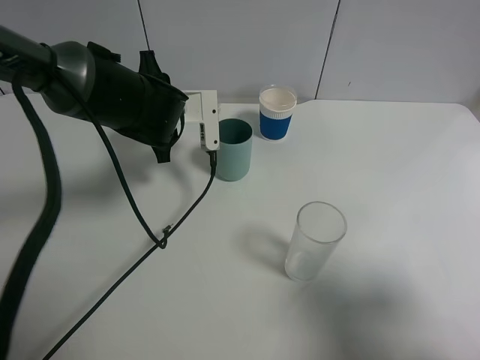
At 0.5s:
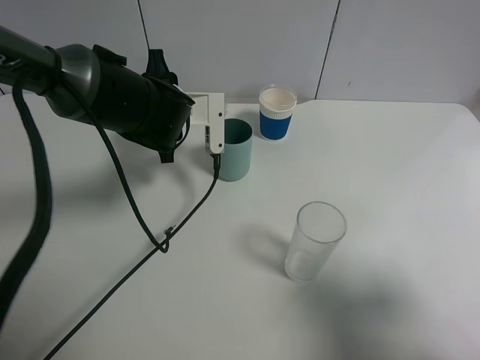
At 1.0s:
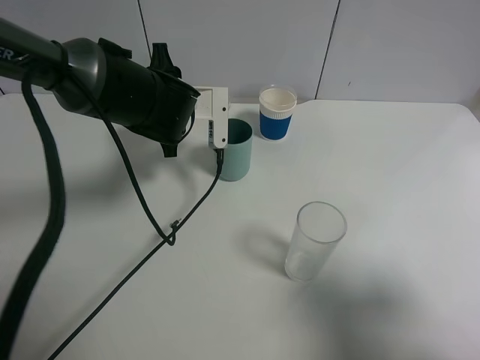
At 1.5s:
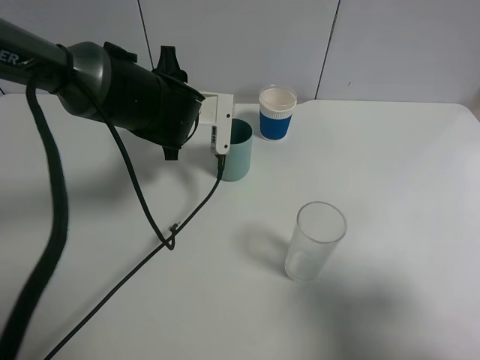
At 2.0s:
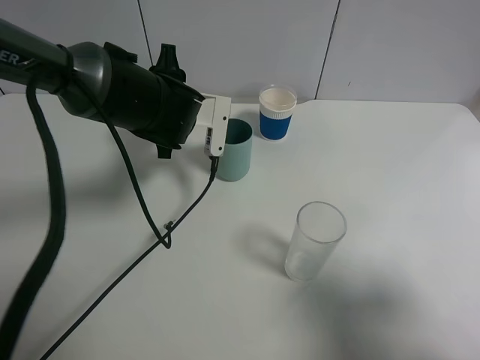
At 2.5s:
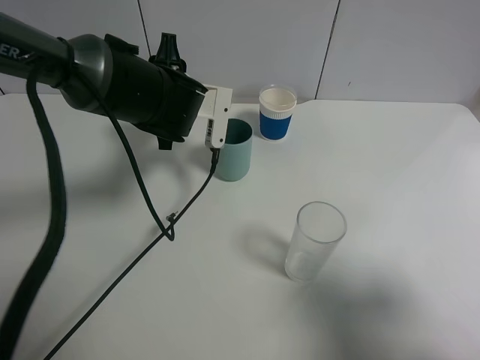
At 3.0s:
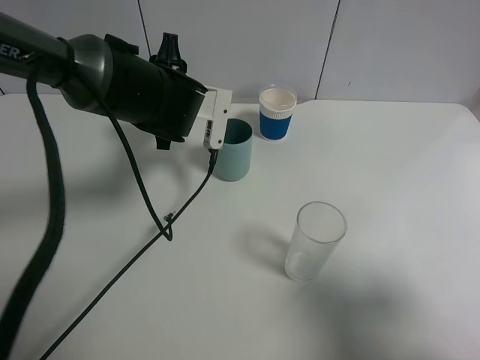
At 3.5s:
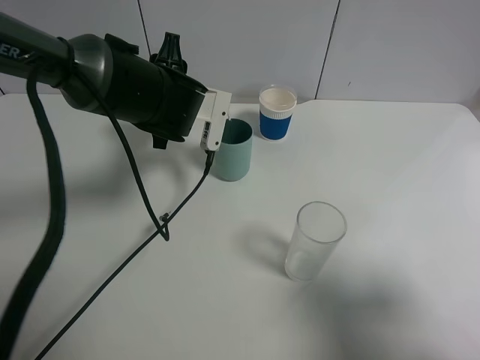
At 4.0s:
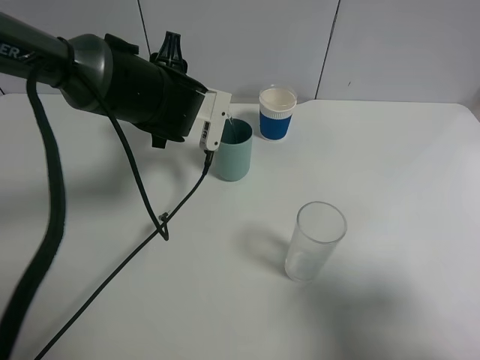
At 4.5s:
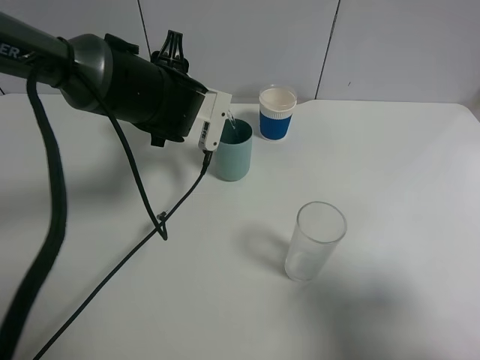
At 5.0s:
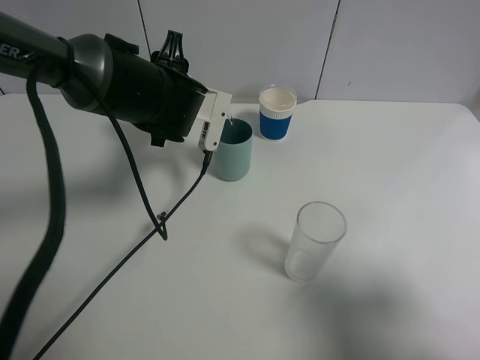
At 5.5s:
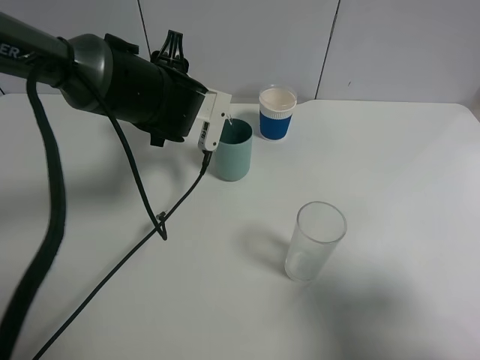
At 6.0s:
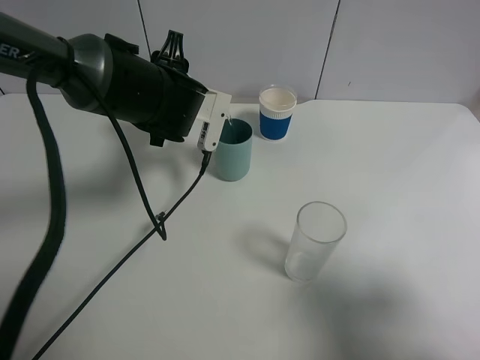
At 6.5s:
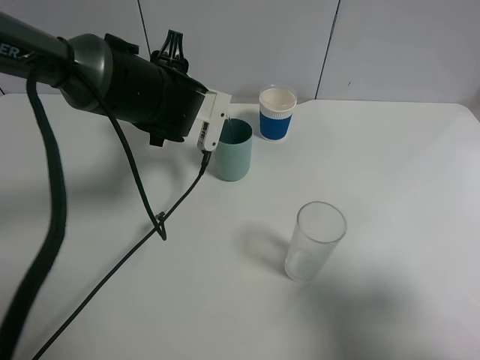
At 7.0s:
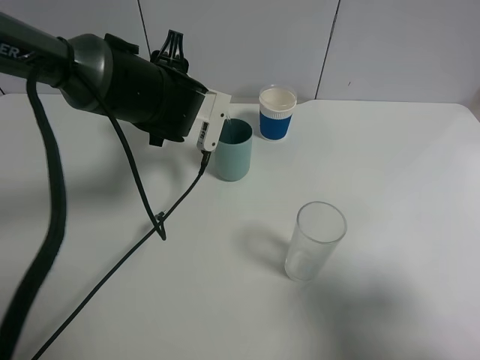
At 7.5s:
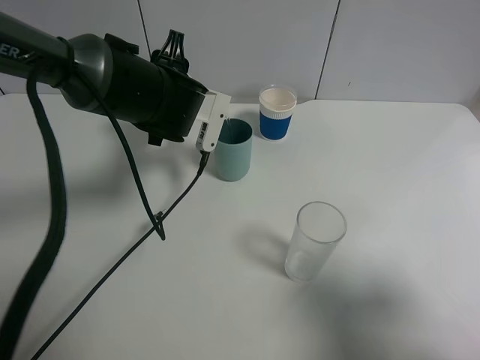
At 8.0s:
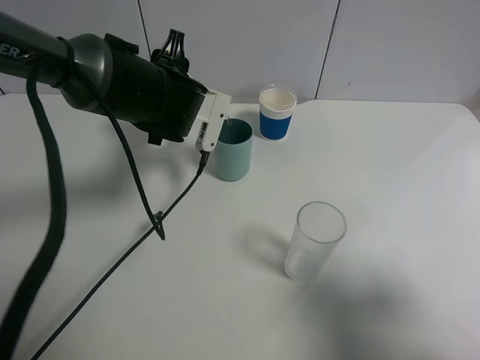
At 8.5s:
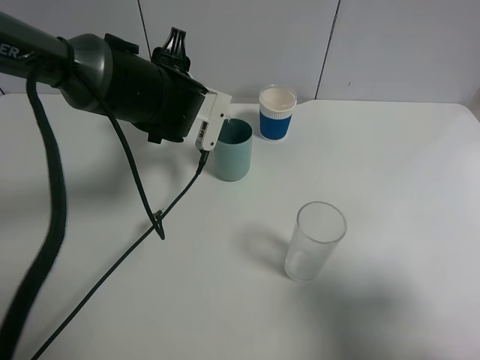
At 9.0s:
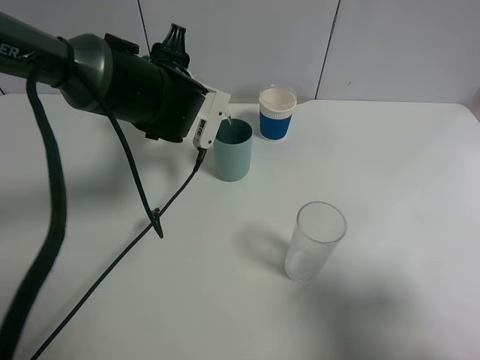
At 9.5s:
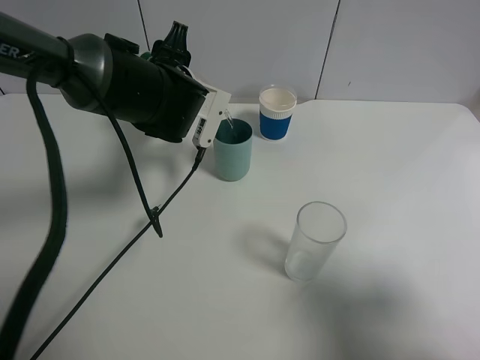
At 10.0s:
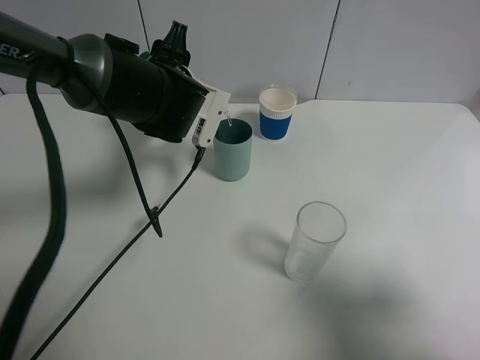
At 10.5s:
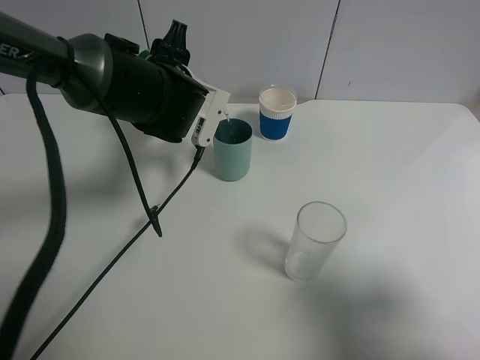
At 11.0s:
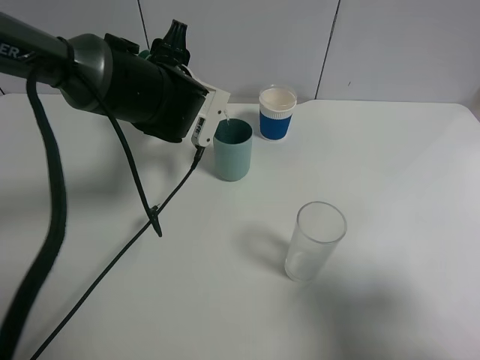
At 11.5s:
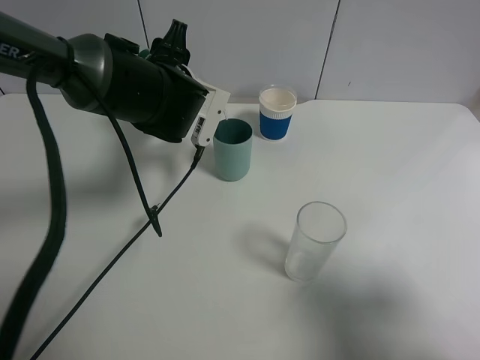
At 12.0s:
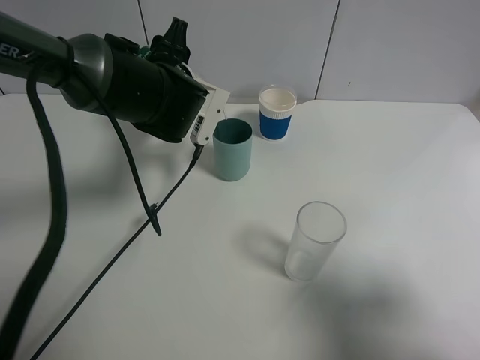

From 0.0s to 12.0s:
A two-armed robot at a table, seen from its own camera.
Task of the whole recording: use a gripper to hold the bottle of the drink and pour it into a random cup.
From 0.0s to 4.0s: The grippers move only a little.
From 4.0s to 8.0s: Both grippers stay about where they are.
From 8.0s to 10.0s: Both grippers stay put.
From 10.0s to 12.0s: The two grippers keep their place.

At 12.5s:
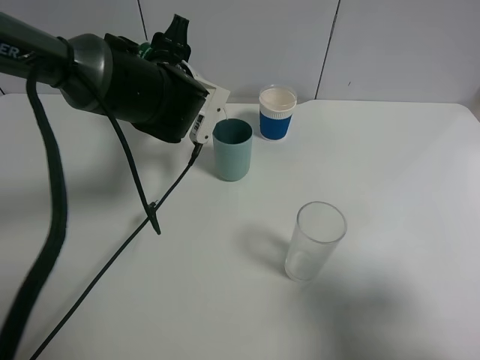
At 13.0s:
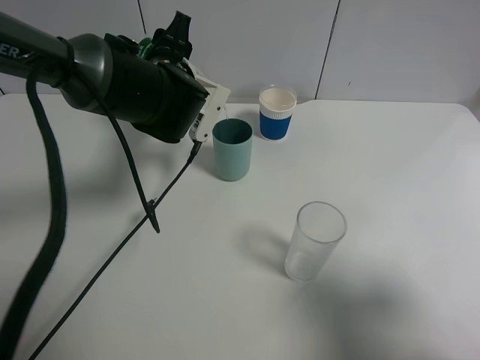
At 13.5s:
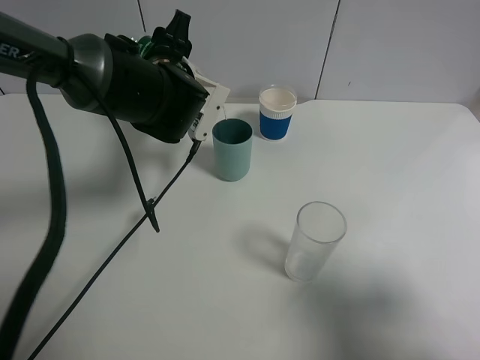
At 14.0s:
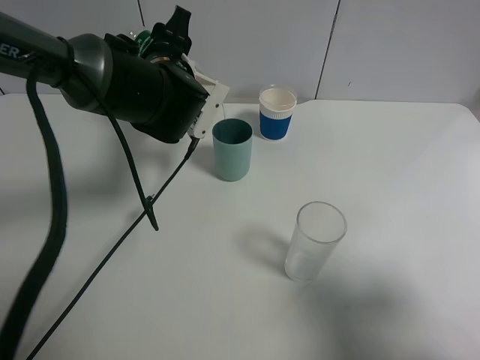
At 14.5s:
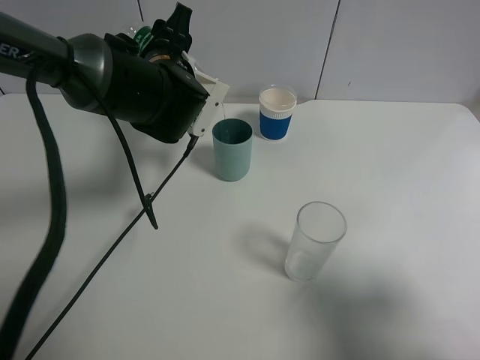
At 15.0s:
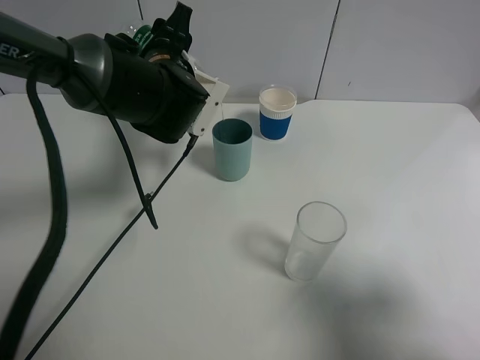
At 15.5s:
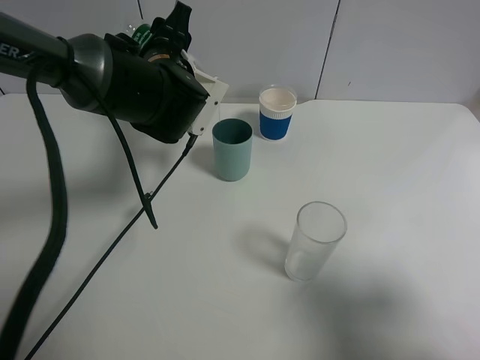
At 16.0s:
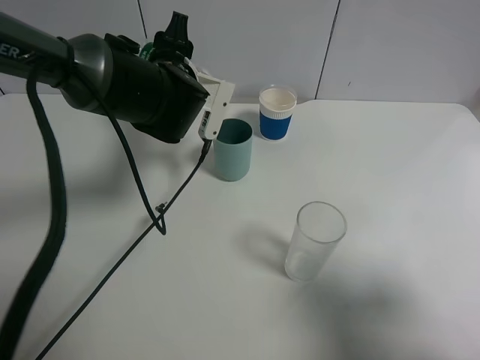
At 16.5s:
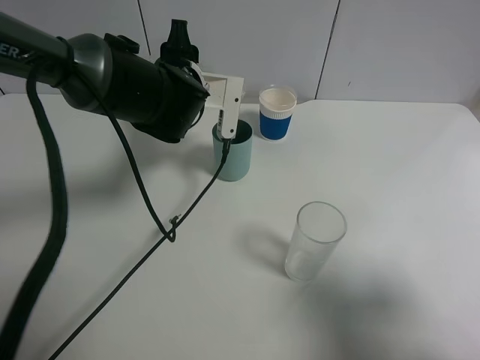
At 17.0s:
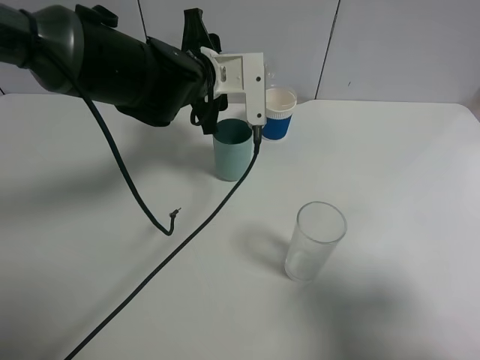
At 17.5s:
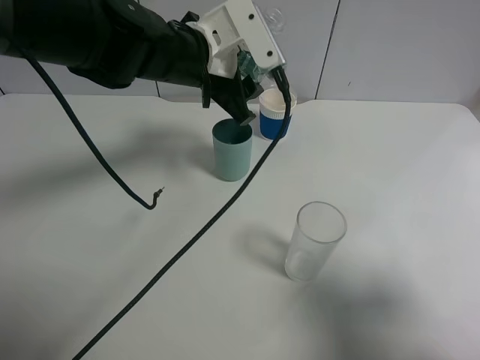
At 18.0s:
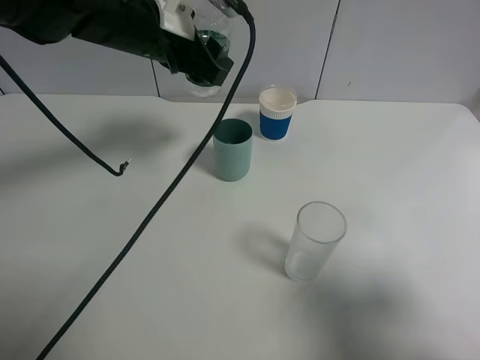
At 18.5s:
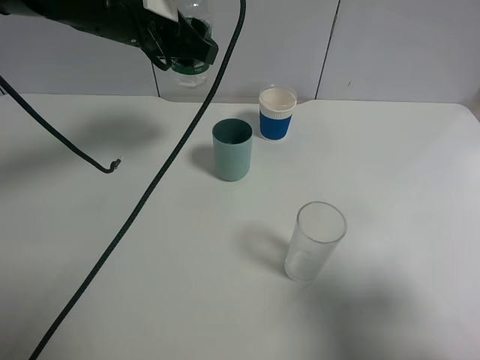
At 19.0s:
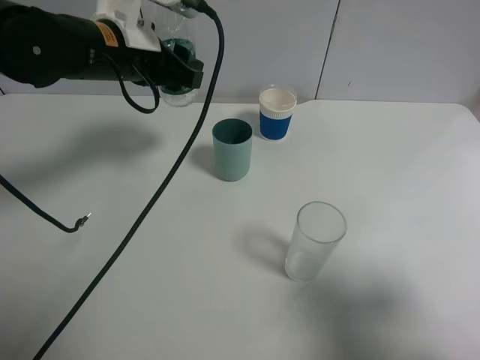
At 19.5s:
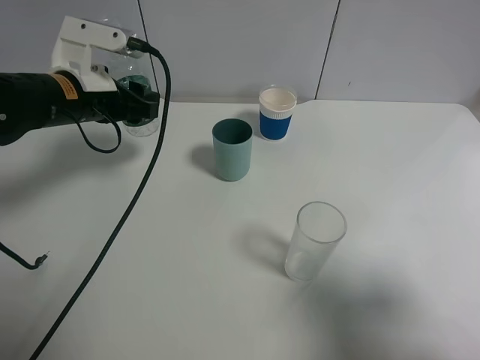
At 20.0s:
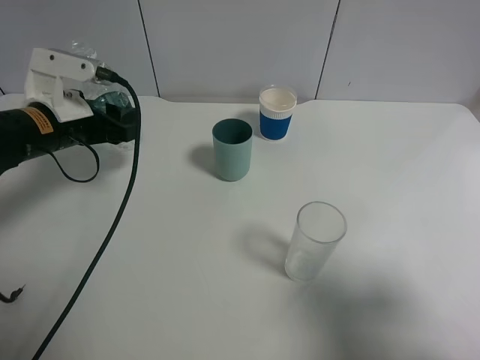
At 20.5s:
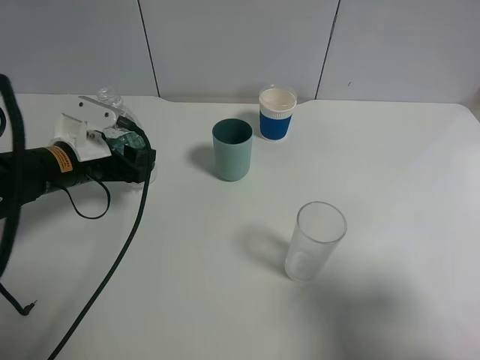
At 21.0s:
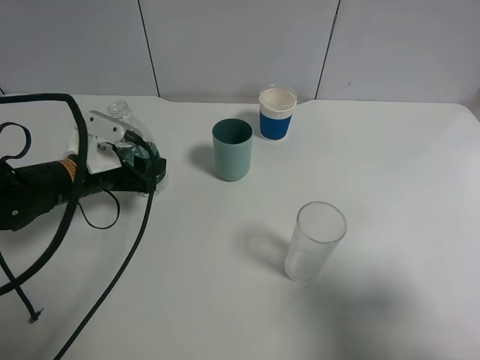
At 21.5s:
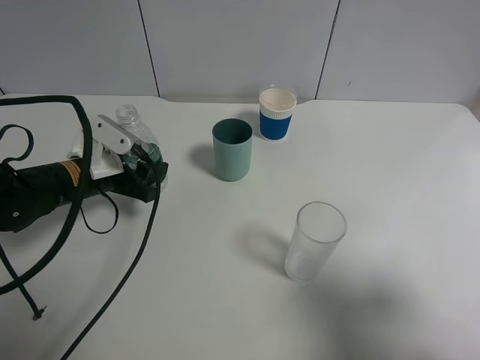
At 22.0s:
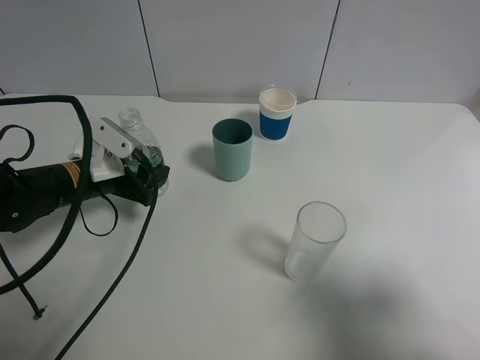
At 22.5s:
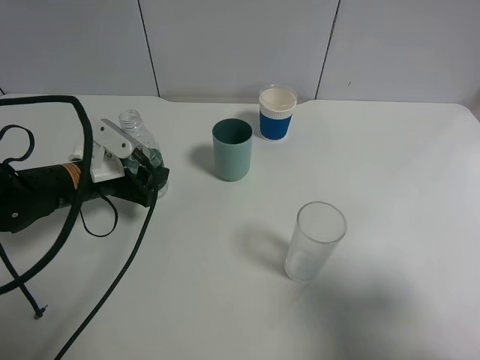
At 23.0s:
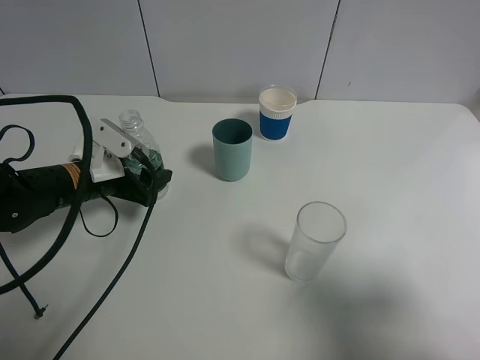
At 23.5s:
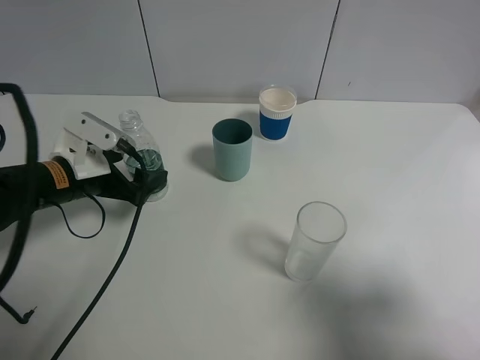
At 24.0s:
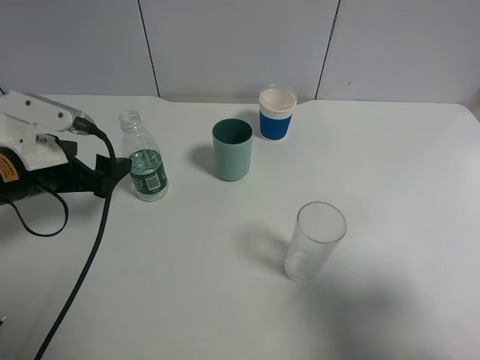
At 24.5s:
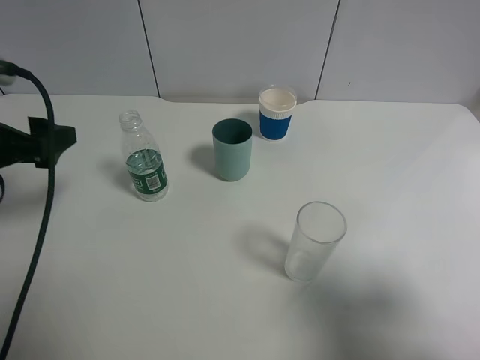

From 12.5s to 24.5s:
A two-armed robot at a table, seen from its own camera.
Task of the whole recording: use a gripper to hold the bottle of the drink and pour it into a random cup.
Step, from 12.5s to 16.5s: Pour the mineral water into the cyan cup with the left gripper.
Step, from 17.0s to 23.5s: Place the mineral water bottle on the table with the left gripper.
From 12.5s to 14.5s: The grippers stay close to where they were, moving slightly.
From 16.5s to 18.5s: The left gripper is displaced upward by roughly 10 cm.
From 18.5s to 20.5s: The left gripper goes about 20 cm downward, to the left and backward.
From 20.5s to 22.5s: There are only small adjustments of the grippers.
From 22.5s to 24.5s: The left gripper is displaced upward, backward and to the left by about 15 cm, and opens its fingers.

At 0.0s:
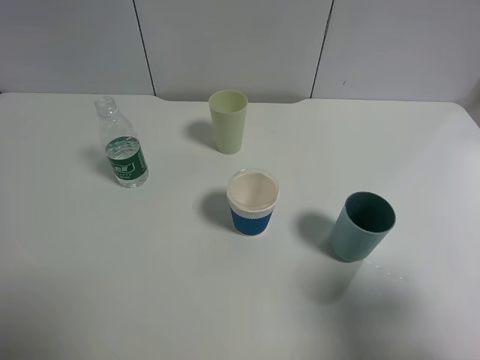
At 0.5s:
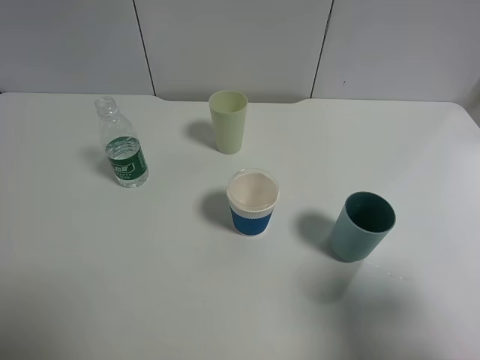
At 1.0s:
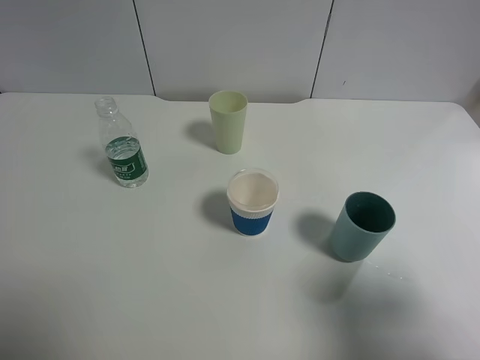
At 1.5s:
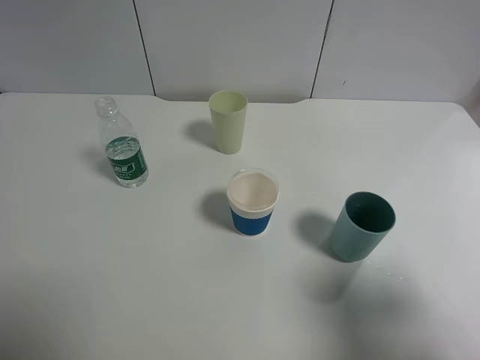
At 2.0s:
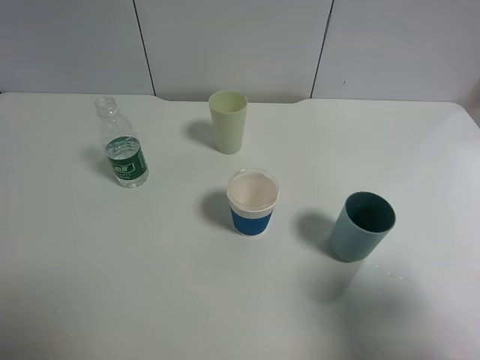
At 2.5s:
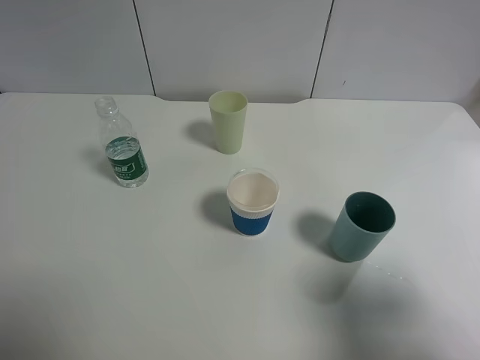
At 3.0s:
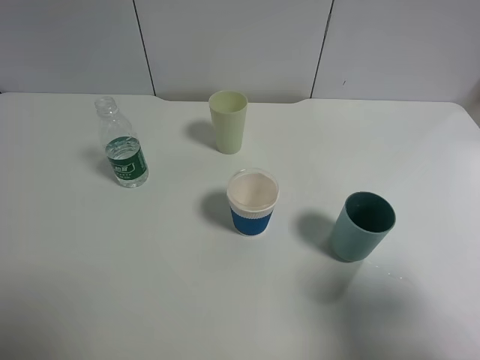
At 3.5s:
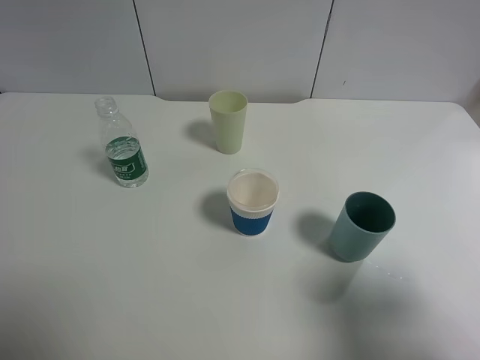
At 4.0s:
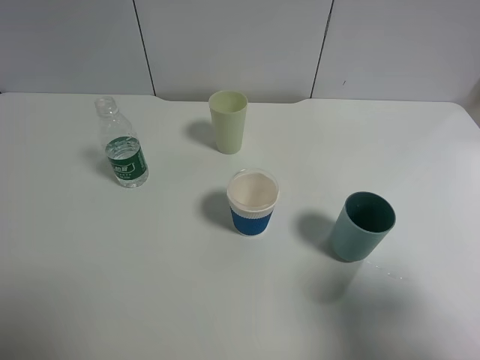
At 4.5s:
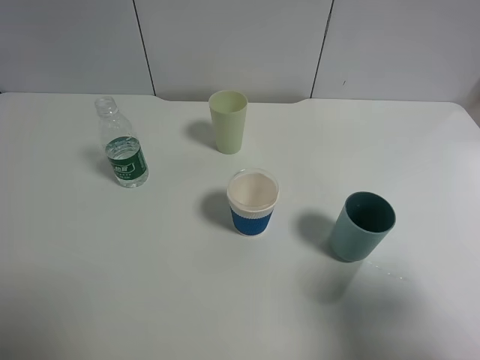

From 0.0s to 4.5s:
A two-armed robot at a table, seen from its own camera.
Task of the whole recording: use a gripper to hold the bottle of the drink and pour it into a random cup.
From 0.0s to 2.0s: Both grippers stay put.
